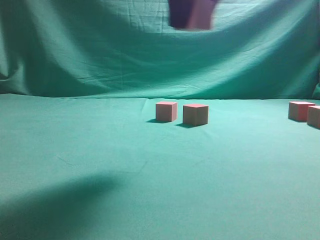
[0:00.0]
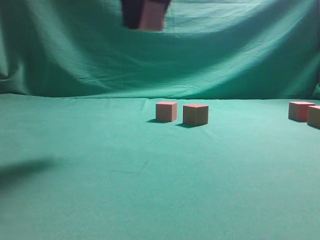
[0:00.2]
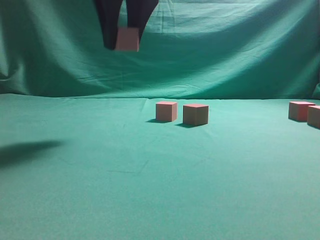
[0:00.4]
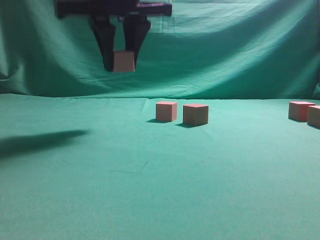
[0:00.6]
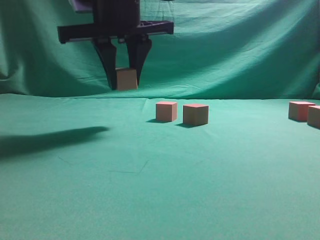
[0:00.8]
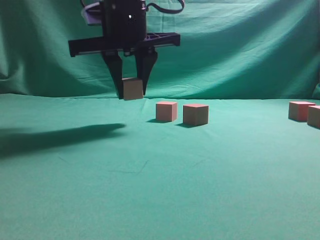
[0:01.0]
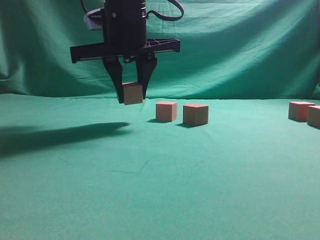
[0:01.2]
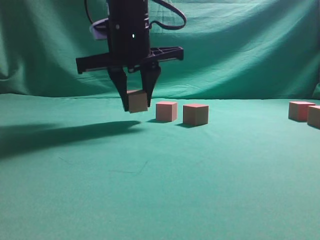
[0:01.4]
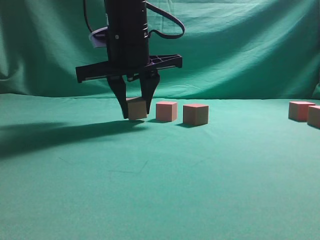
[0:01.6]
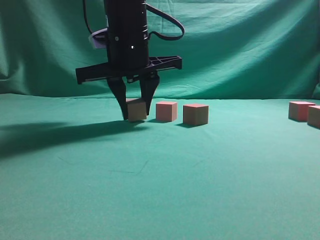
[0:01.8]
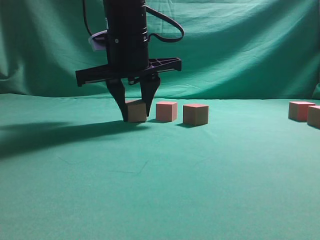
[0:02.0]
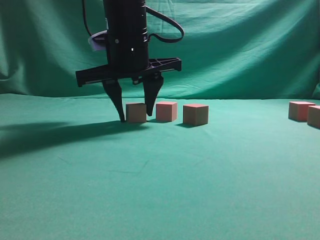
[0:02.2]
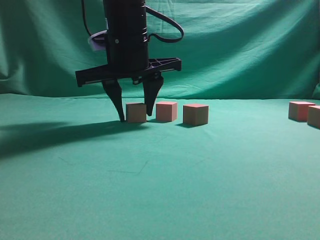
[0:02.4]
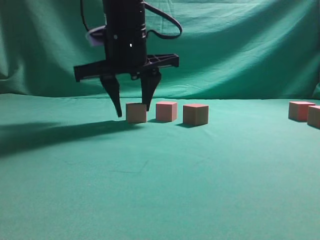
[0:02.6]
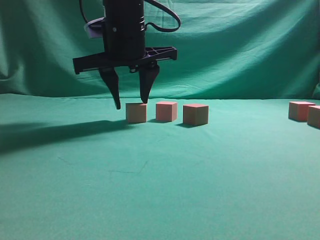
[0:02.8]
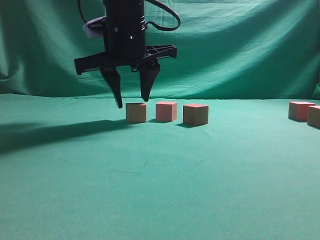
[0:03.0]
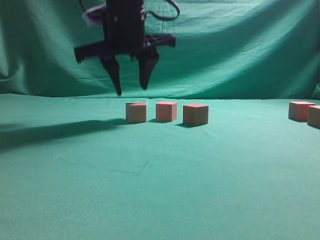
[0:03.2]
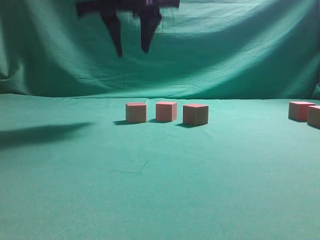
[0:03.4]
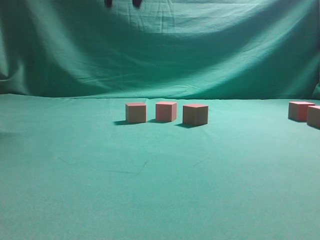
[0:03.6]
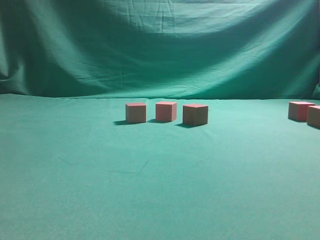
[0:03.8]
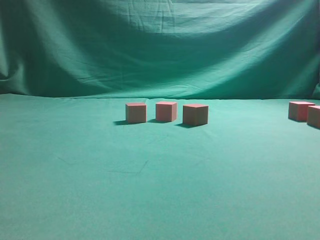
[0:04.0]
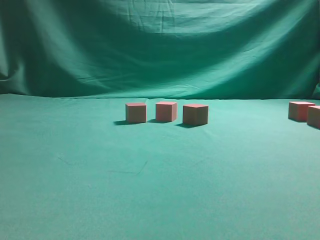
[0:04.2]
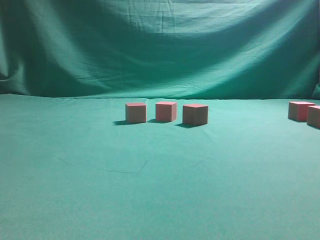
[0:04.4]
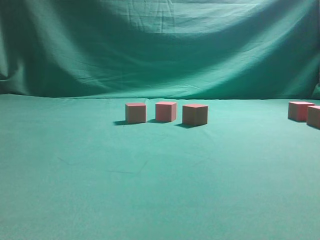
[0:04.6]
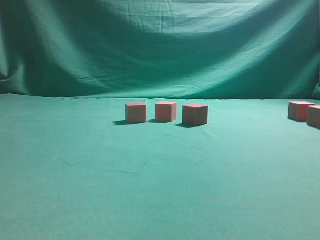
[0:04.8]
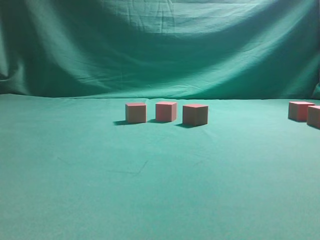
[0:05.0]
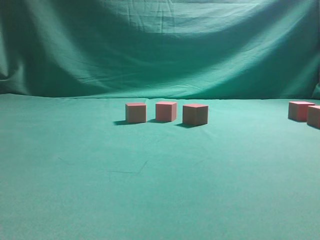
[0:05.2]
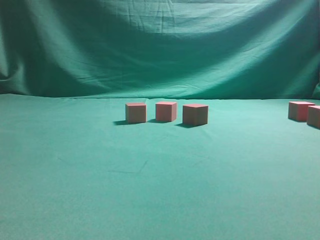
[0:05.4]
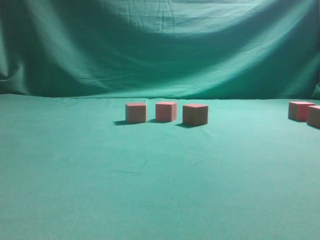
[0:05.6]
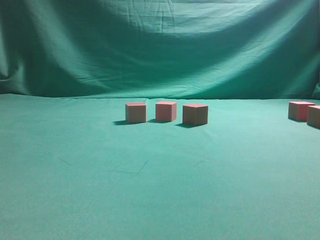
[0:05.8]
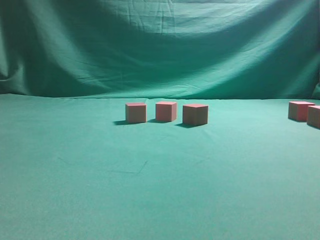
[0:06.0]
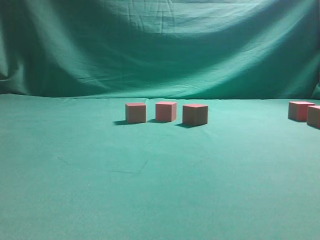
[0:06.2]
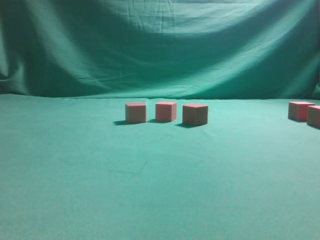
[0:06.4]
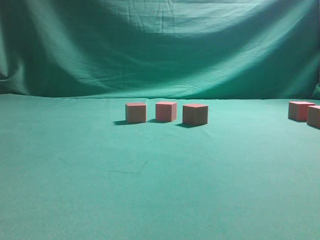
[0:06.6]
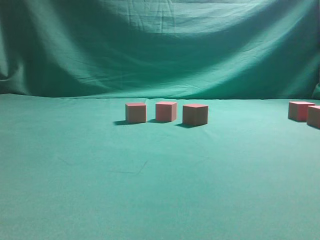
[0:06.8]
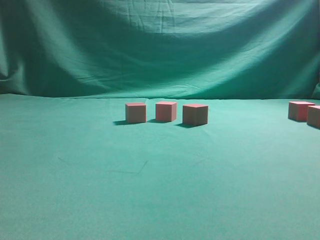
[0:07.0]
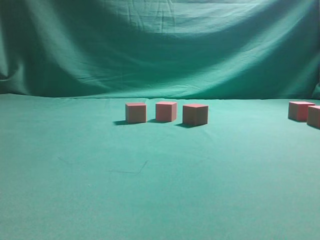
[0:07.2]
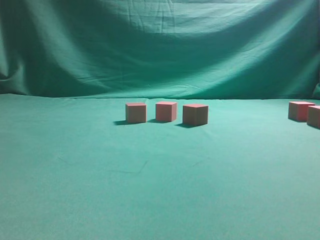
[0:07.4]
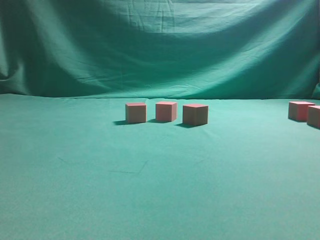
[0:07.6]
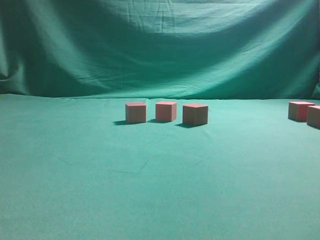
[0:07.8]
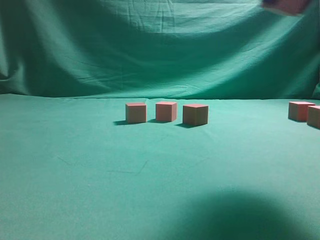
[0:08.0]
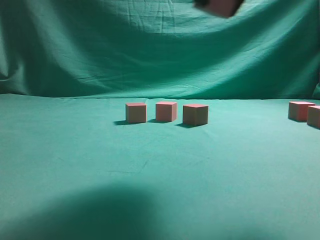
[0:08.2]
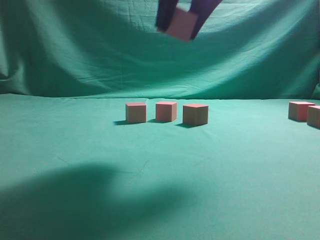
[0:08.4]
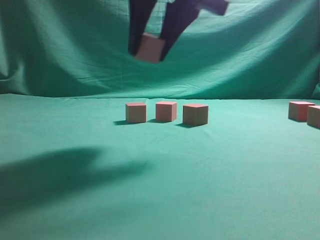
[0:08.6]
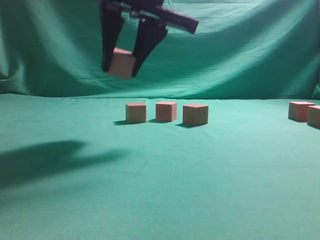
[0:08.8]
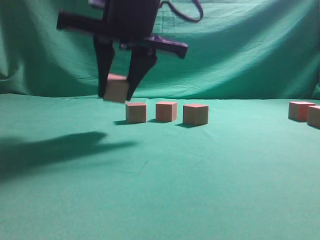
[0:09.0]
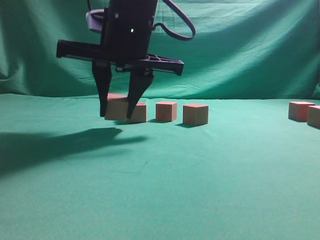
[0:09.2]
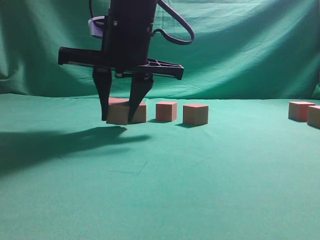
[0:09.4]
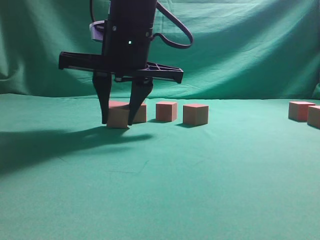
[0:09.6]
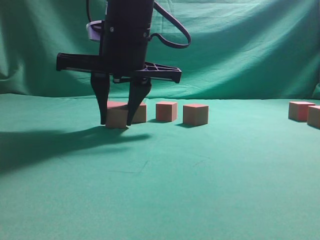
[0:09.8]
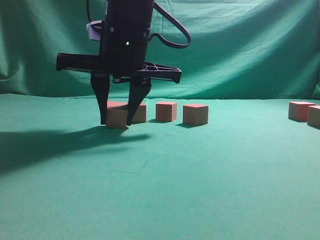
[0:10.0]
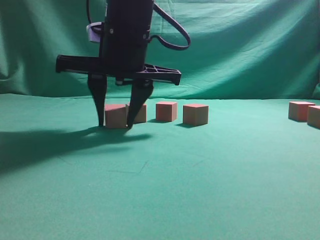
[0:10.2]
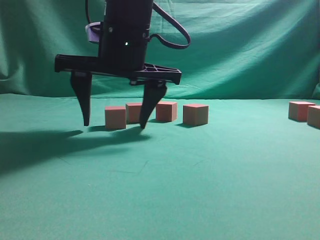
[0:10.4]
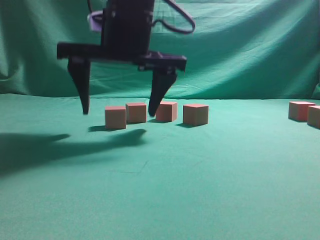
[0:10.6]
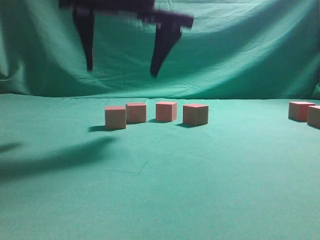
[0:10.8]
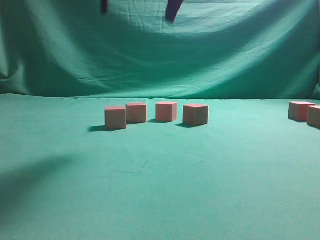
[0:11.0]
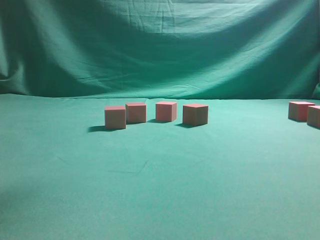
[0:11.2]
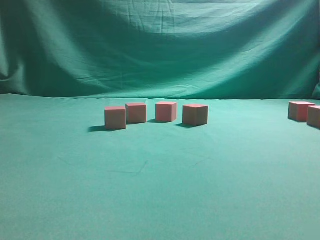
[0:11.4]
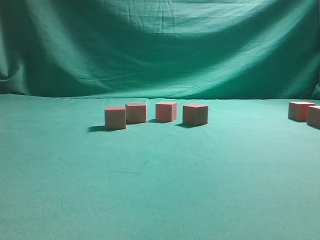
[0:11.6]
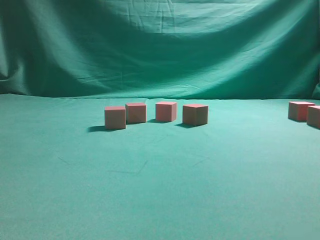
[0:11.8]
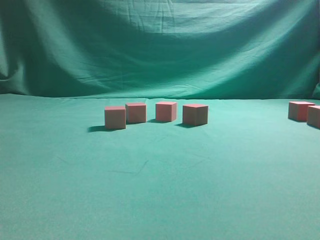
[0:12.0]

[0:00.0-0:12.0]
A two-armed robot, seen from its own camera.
Task of the whole recording: pick up the multiple cubes in two columns one by one and place them in another position on the table.
Step, 0:00.0 to 0:03.4: Place the block at the correct position to assemble the letter S.
Step, 0:03.6 to 0:07.6: Pick up the block on the table.
Step, 0:07.8 to 0:10.8: Place the block at the correct position to assemble the letter S.
0:00.0 to 0:01.6: The right gripper goes approximately 20 cm forward, downward and to the left.
0:01.6 to 0:03.0: There are only small adjustments of the grippers.
0:03.0 to 0:04.4: The right gripper shifts about 35 cm to the right, upward and backward.
0:07.6 to 0:09.0: The right gripper moves to the left, some 30 cm.
0:09.0 to 0:10.4: The right gripper opens.
0:10.4 to 0:12.0: The right gripper is displaced to the right and upward by approximately 30 cm.

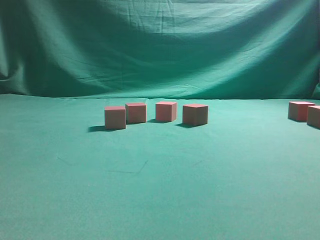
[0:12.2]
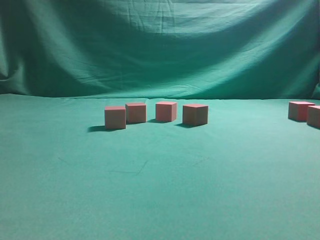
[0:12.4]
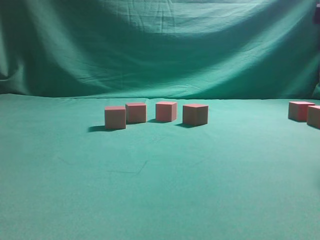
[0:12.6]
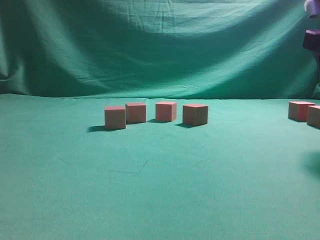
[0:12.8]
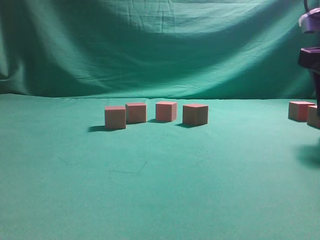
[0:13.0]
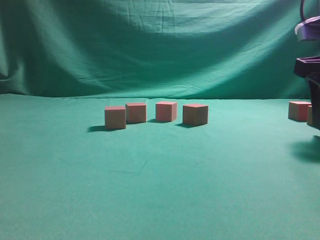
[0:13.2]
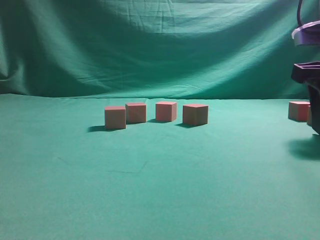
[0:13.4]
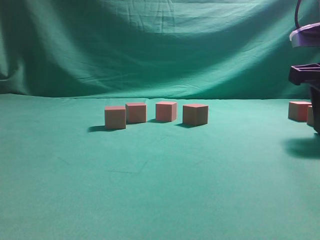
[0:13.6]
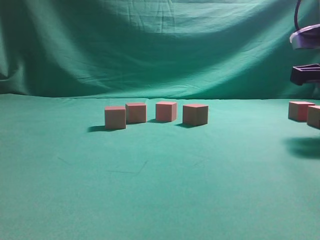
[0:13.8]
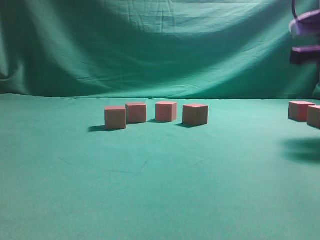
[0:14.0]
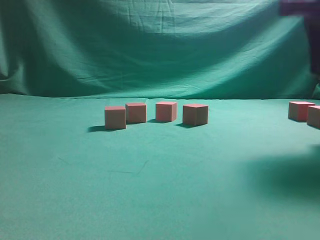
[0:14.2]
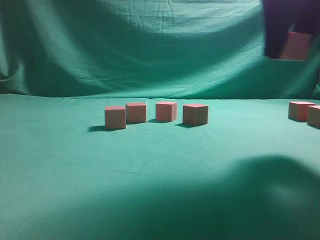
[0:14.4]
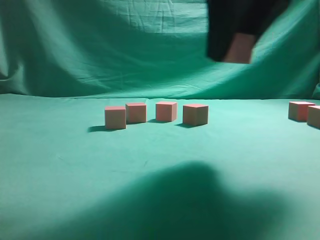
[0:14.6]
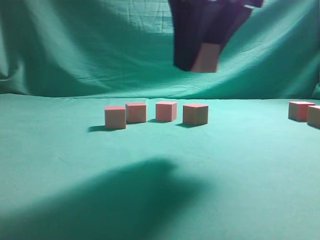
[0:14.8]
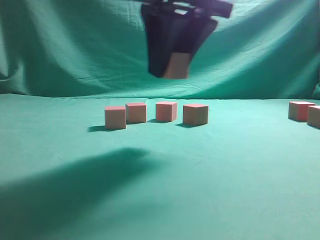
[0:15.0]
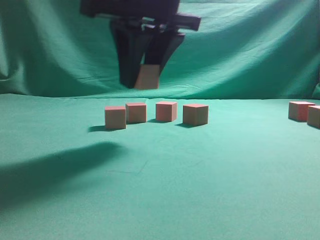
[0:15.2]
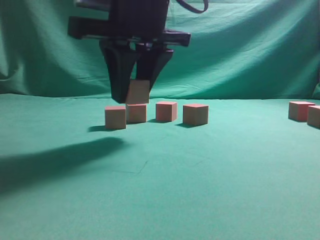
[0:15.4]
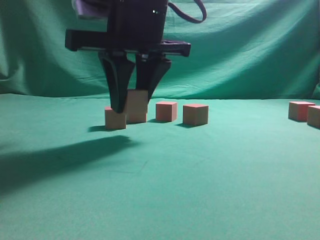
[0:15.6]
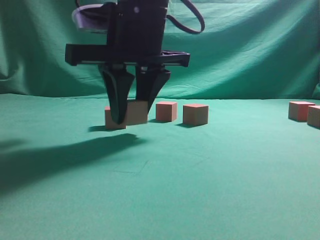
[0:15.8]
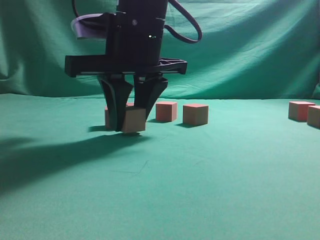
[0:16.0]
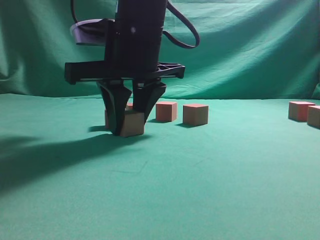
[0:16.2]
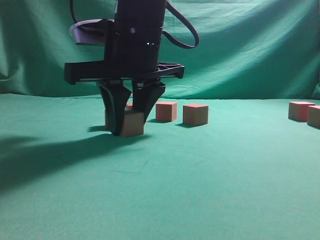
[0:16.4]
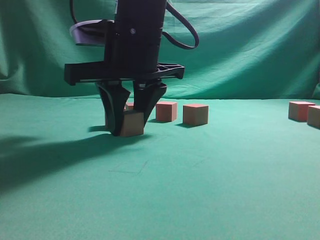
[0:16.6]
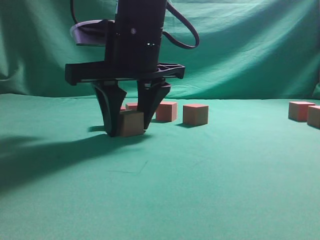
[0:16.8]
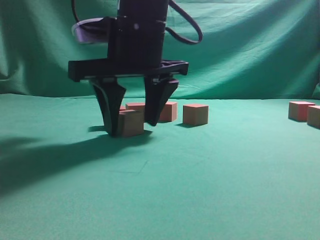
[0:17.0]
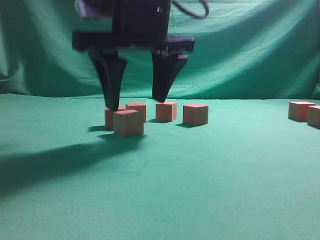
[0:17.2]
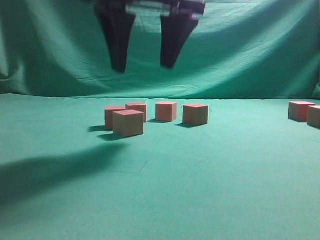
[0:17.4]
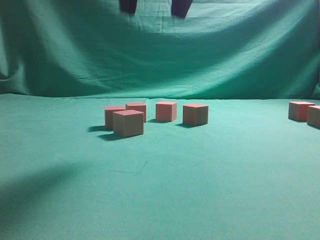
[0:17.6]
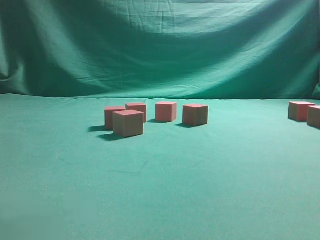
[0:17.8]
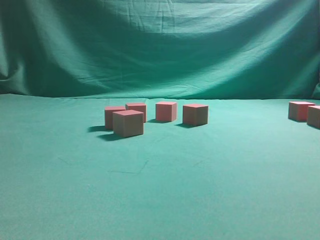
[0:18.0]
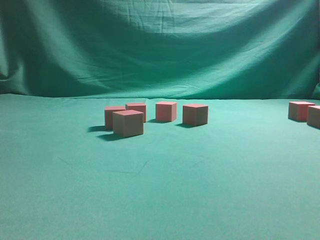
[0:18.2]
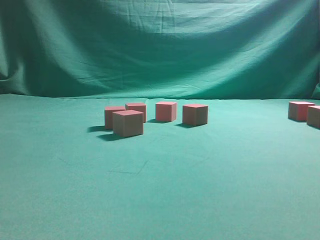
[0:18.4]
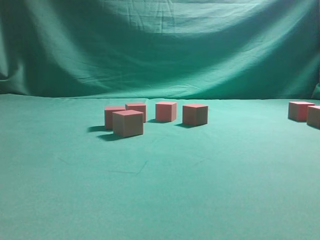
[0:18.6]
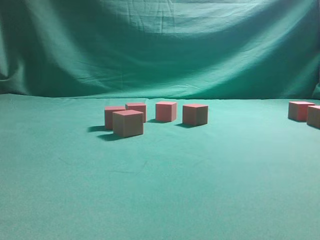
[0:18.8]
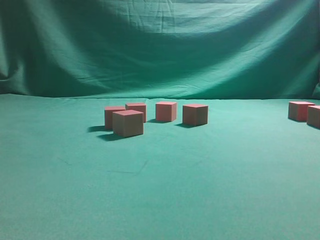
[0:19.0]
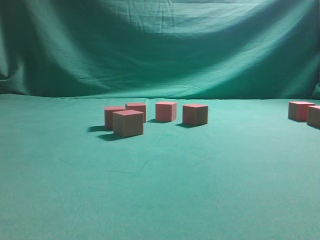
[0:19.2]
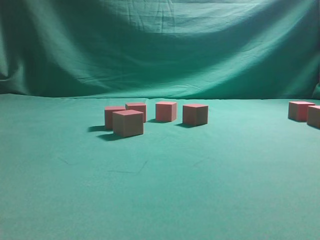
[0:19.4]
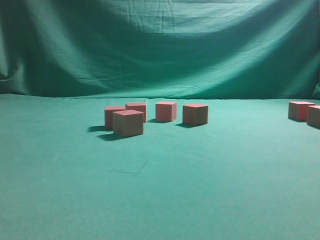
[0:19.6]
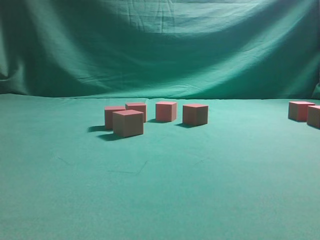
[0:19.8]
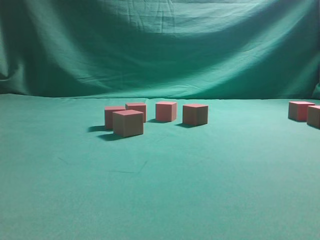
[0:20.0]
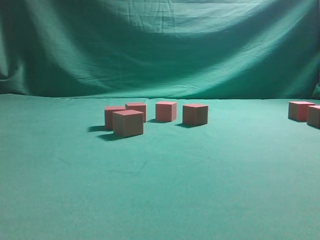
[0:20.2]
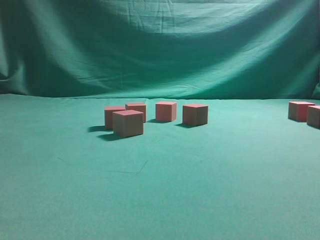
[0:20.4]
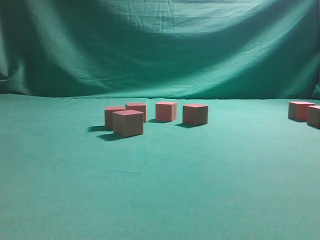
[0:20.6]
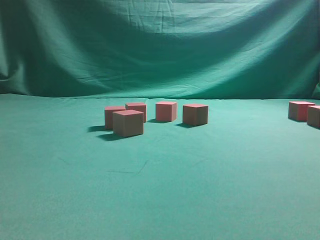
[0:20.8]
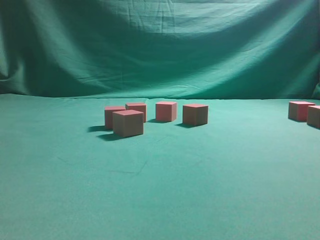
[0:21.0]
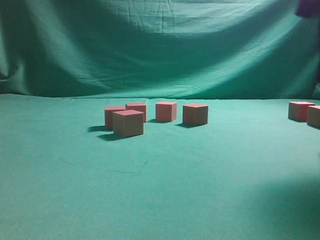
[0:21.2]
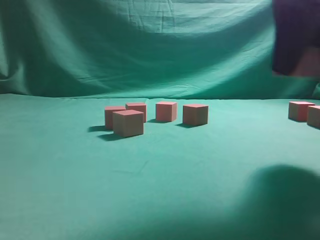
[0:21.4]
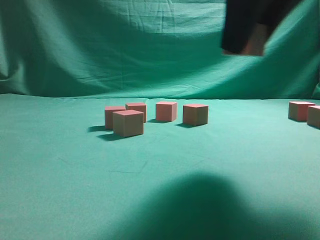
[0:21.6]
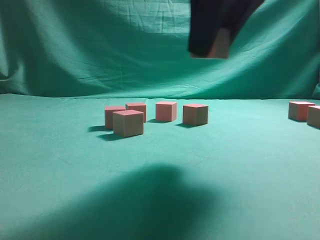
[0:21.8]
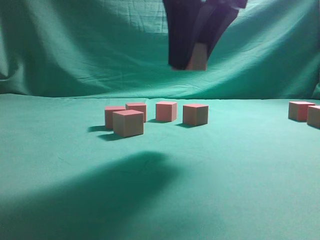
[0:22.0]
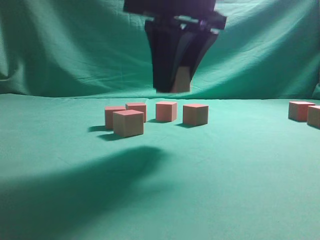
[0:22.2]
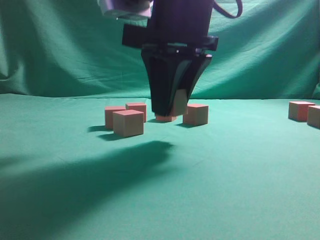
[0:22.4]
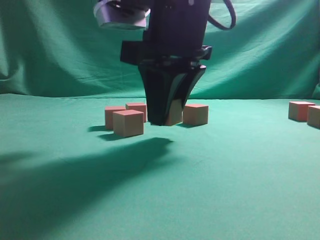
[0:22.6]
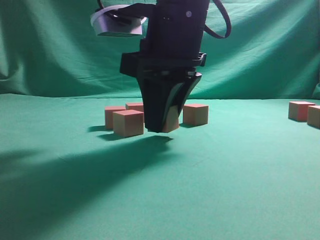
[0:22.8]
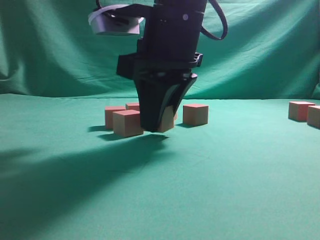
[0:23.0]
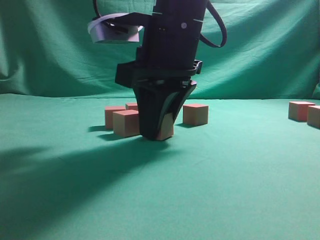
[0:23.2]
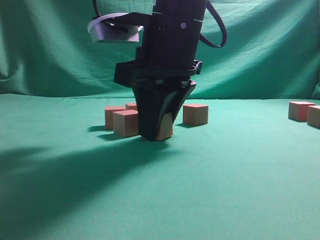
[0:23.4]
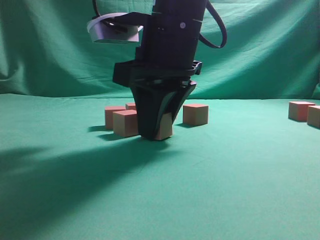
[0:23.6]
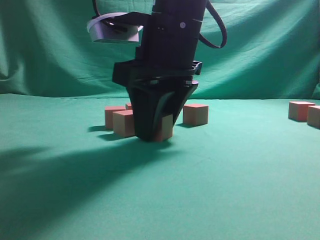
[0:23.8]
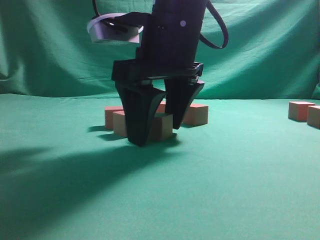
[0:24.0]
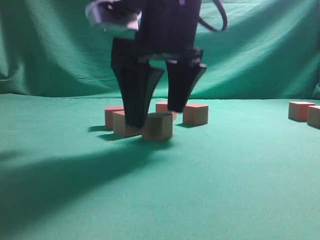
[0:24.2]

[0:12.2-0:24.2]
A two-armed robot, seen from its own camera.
Task of the whole recording: pick up the multiple cubes in two columns one by one and place them in another position on the table.
Step, 0:12.2 to 0:14.0: Pick up the block on the table.
Step, 0:14.4 to 0:17.4: Place the block at the correct position to assemble the letter S.
Step, 0:17.6 to 0:21.2: Pick up the block on the table.
0:12.2 to 0:13.8: The right gripper moves downward and forward, about 15 cm, and closes.
0:13.8 to 0:15.2: The right gripper travels to the left by some 25 cm.
0:15.2 to 0:16.6: The right gripper is displaced downward by approximately 5 cm.
0:16.6 to 0:18.2: The right gripper moves upward, to the right and backward, some 35 cm, and opens.
0:19.8 to 0:21.2: The right gripper is displaced to the left by some 5 cm, and closes up.
0:21.2 to 0:22.6: The right gripper shifts about 20 cm to the left.
0:22.6 to 0:24.2: The right gripper opens.
